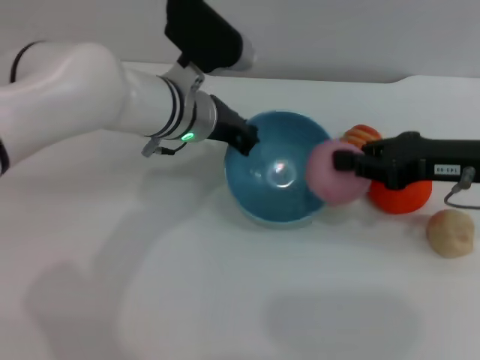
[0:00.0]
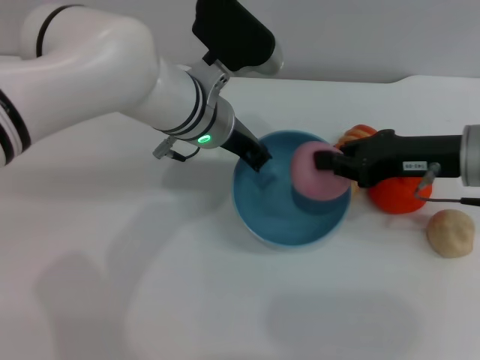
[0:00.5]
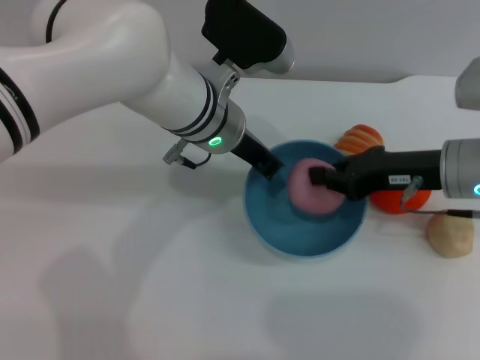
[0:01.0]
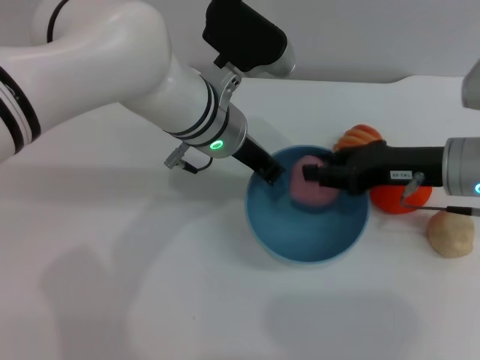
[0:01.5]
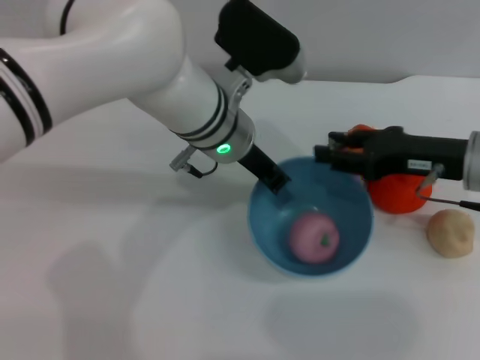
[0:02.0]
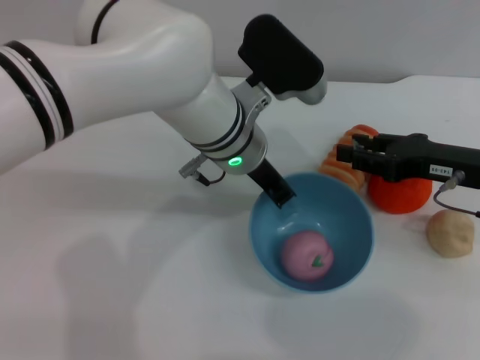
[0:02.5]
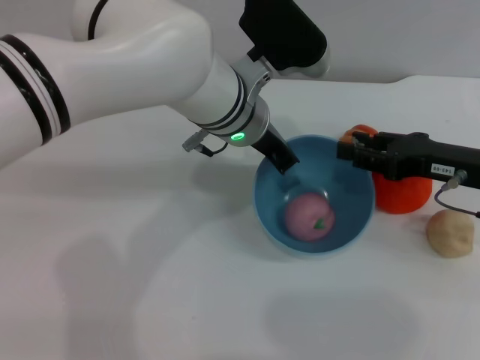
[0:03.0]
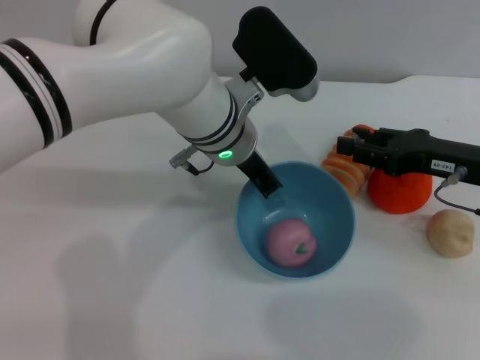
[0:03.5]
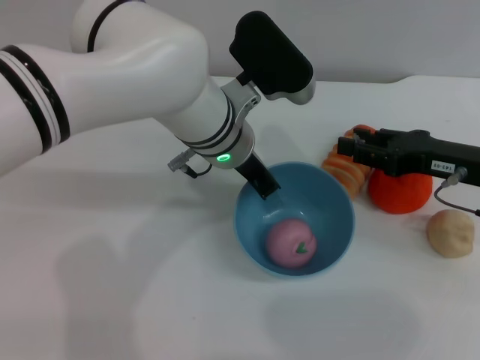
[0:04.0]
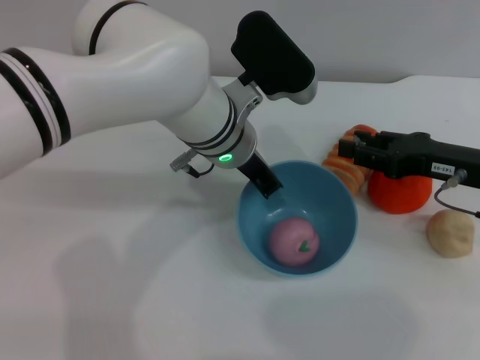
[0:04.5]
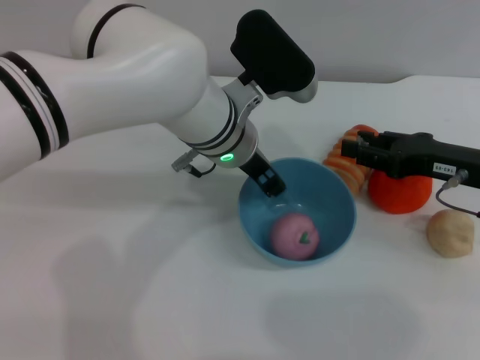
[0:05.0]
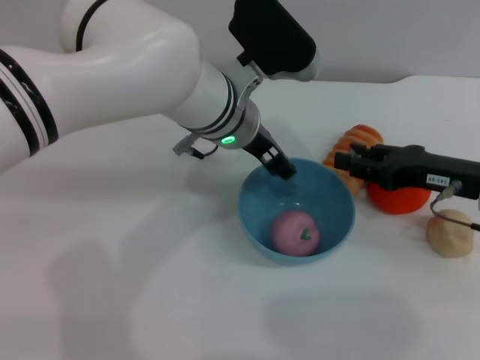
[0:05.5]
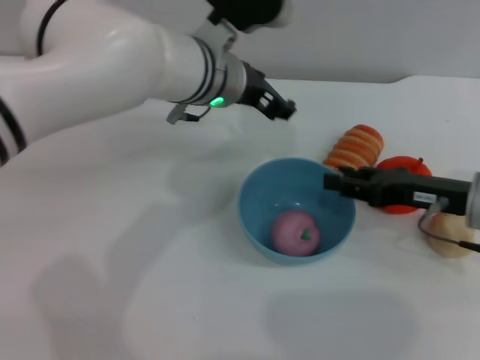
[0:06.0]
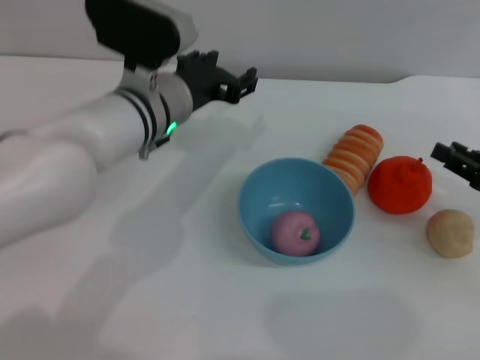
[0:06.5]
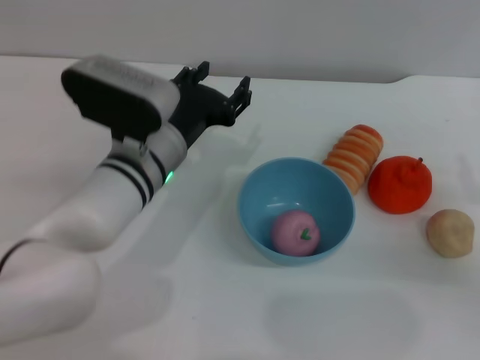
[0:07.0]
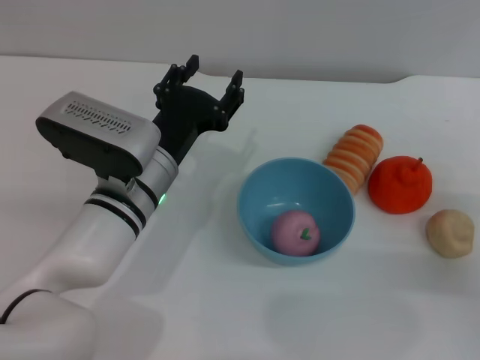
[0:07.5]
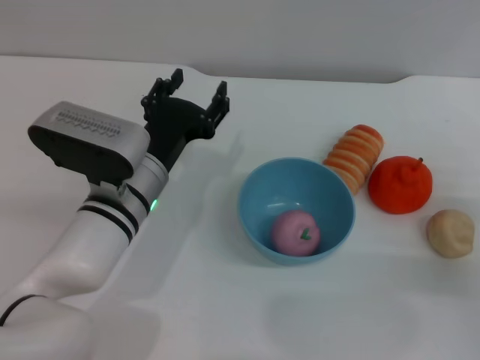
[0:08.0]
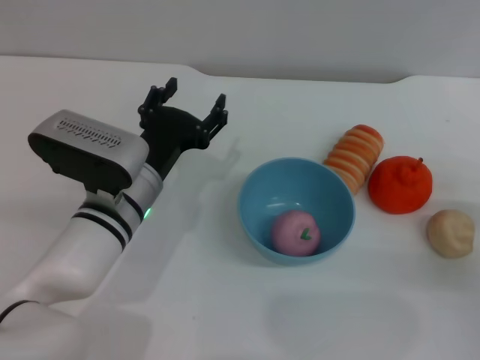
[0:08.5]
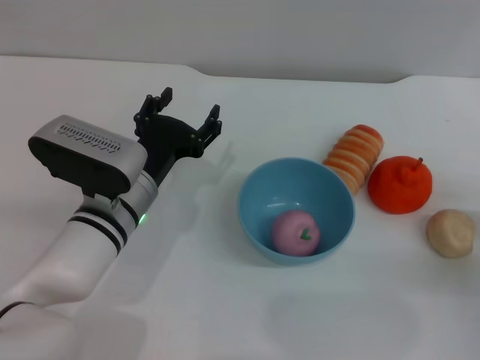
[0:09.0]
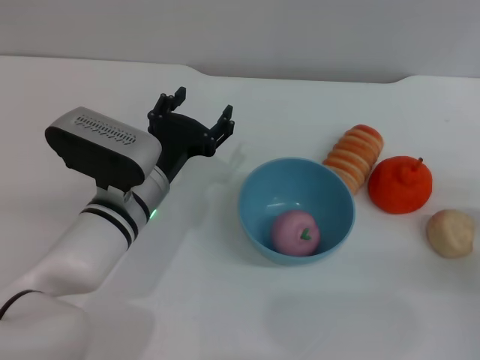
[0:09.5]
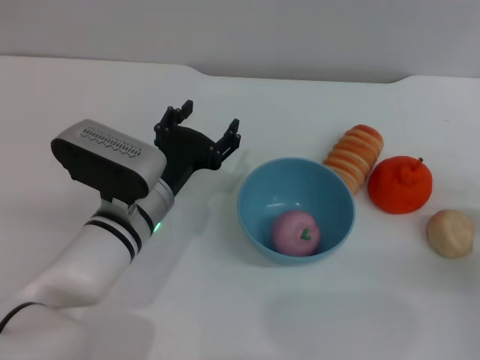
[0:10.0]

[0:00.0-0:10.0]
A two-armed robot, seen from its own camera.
Task of the whole recording: put the peach into the blue bowl and pour it out repeatedly.
Step, 0:00.0 to 0:02.0: Place the peach into the bowl.
Step, 0:02.5 to 0:05.5: Place the bowl on the table.
0:00.0 to 0:02.0: The left gripper ends up roughly 5 cm from where it was, while the right gripper opens.
0:02.0 to 0:04.0: The grippers stay close to where they were, moving slightly.
0:04.0 to 0:06.0: The left gripper opens its fingers.
0:06.0 to 0:08.0: The right gripper moves to the right, backward and downward, approximately 10 cm, while the left gripper is displaced downward, backward and to the left by roughly 15 cm.
0:08.0 to 0:10.0: There are only small adjustments of the grippers.
